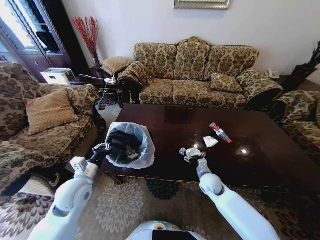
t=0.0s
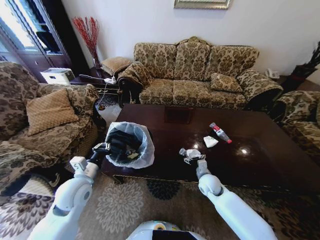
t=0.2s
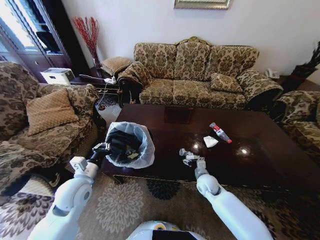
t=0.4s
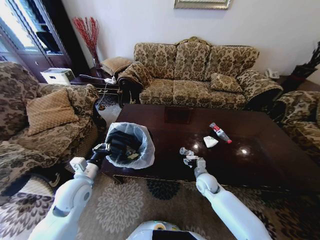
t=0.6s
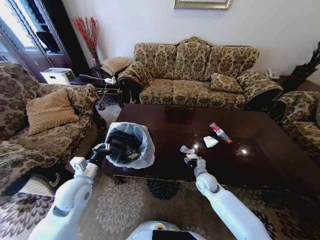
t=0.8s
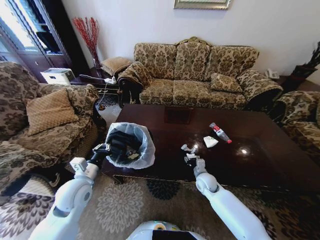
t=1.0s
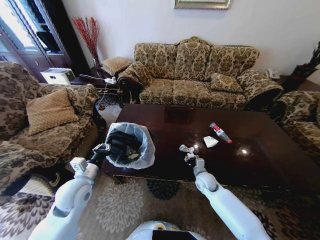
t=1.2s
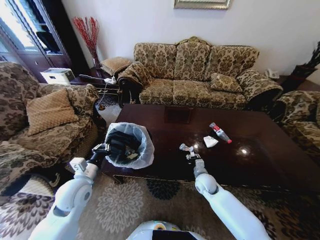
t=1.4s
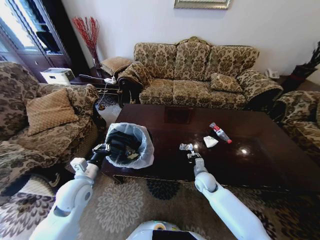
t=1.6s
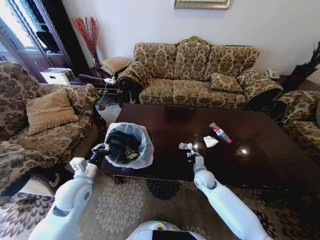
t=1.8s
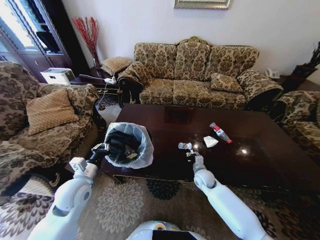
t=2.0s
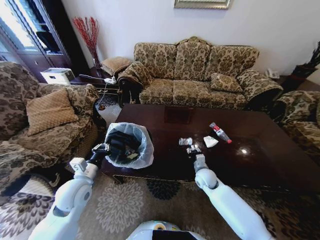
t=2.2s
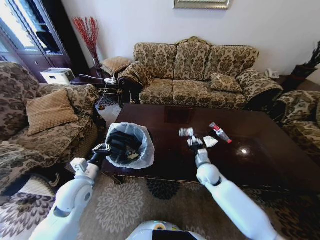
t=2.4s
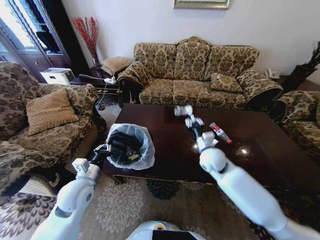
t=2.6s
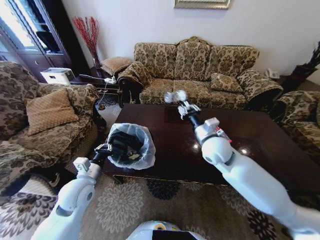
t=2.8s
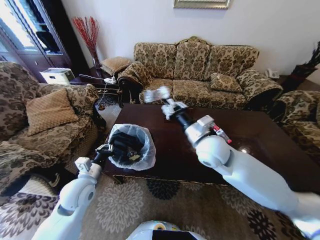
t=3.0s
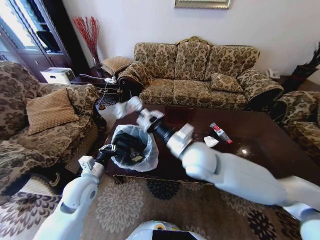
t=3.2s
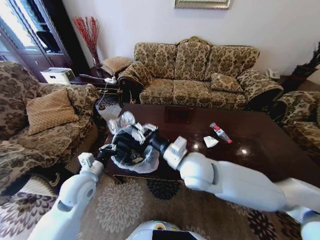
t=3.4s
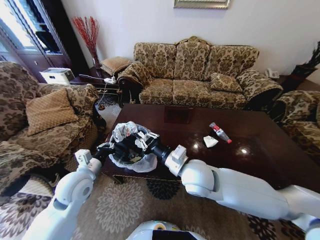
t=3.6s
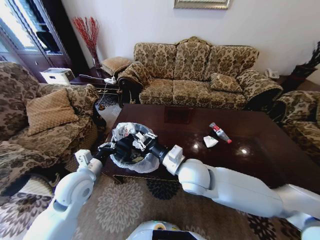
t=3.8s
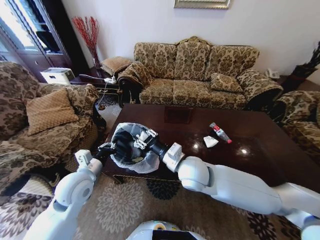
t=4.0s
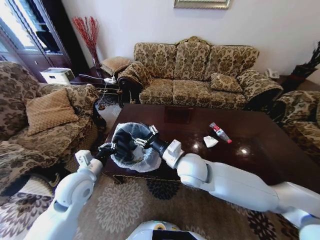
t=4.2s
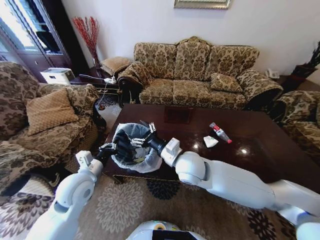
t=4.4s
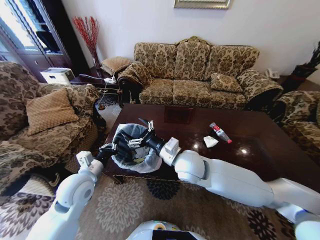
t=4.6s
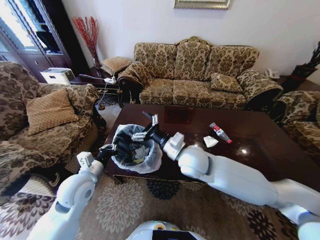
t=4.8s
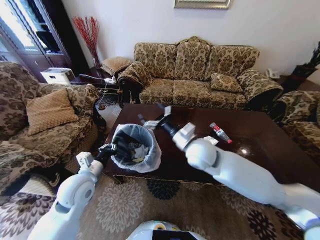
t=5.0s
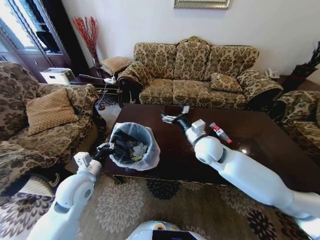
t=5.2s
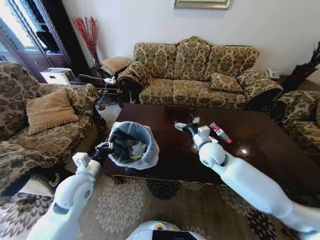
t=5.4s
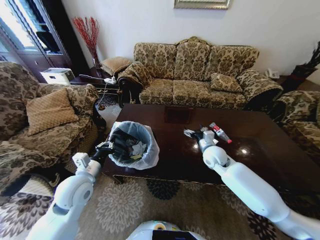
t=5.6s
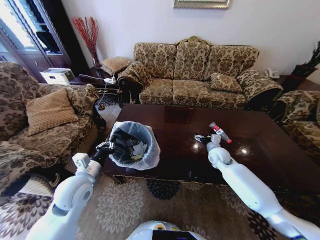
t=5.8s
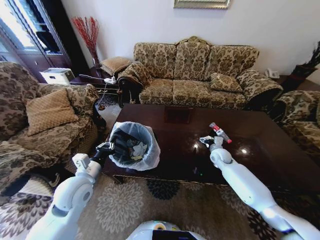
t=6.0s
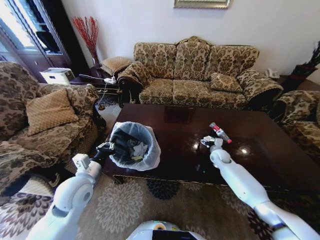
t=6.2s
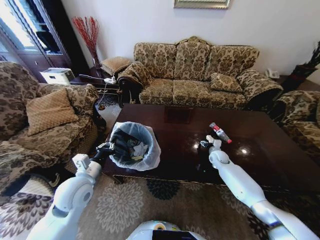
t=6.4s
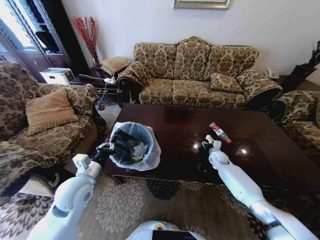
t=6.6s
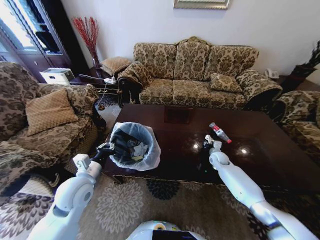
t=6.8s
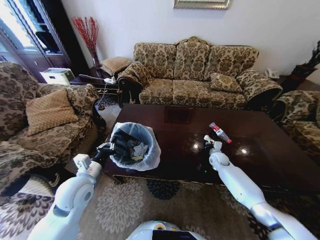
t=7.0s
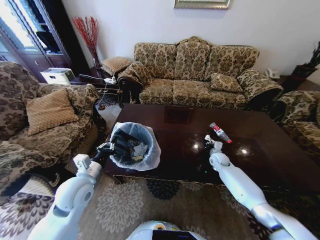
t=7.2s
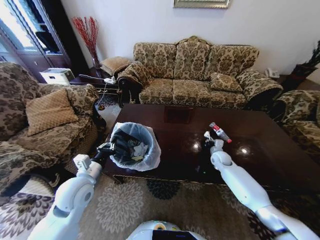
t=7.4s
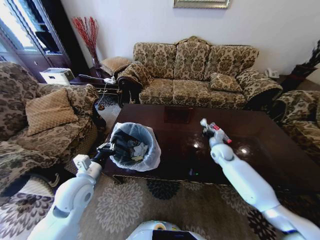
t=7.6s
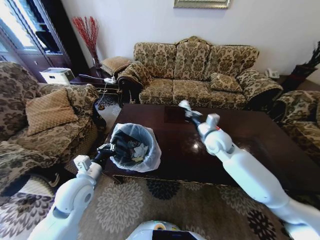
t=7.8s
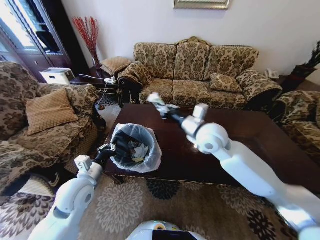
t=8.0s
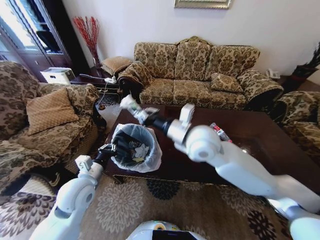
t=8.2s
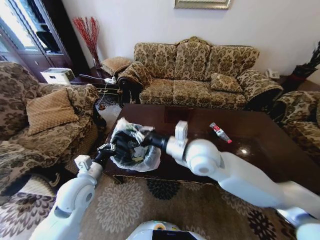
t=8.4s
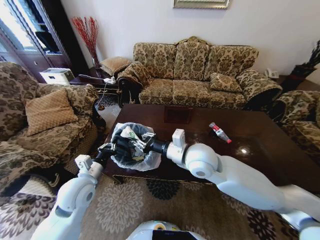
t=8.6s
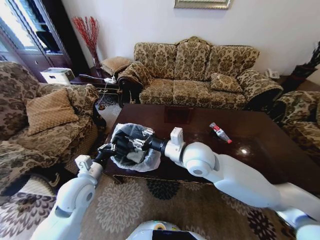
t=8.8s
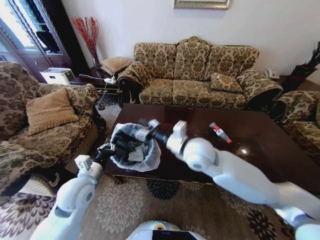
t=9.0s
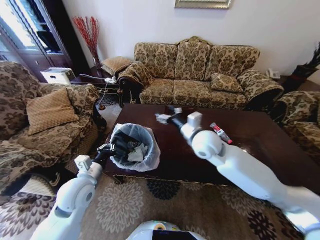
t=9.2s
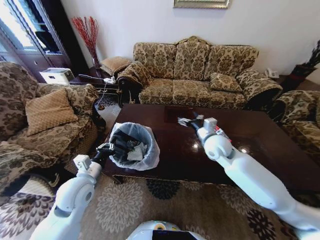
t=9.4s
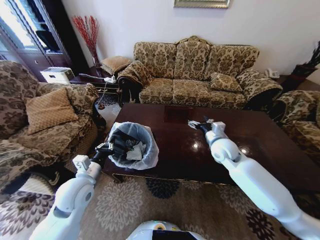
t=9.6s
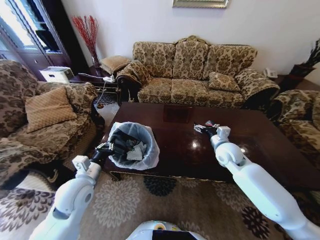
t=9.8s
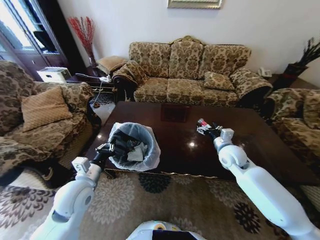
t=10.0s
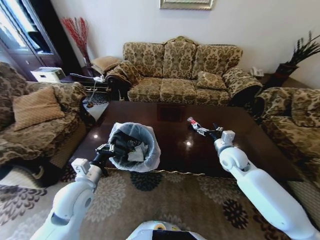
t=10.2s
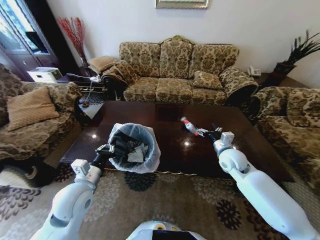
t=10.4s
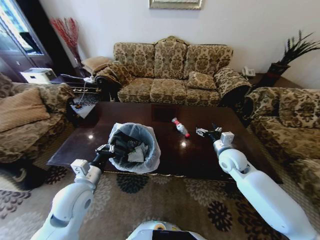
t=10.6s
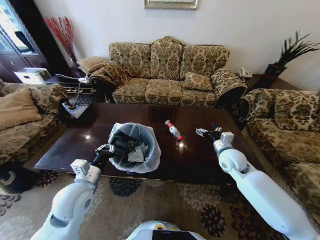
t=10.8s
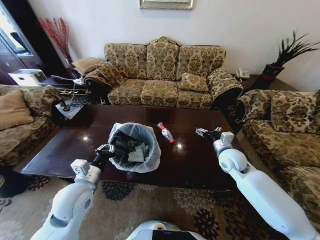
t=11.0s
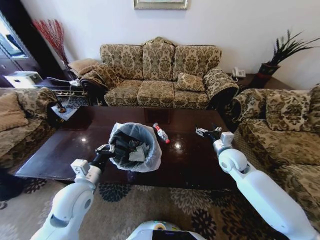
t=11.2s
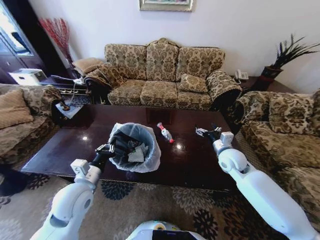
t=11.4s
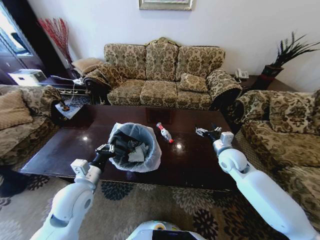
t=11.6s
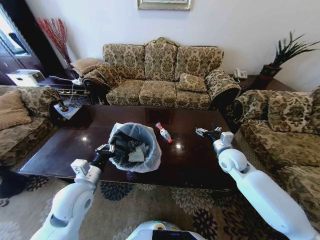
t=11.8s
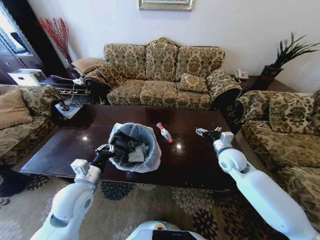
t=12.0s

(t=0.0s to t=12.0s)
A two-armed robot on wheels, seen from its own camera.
Task of the whole recording: Move to the front of the table and place the trash on the table into the trash bin.
t=0.0s - t=1.6s: The right gripper closes up.
t=1.6s - t=3.0s: The right gripper shifts roughly 30 cm upward.
t=3.0s - t=4.4s: The right gripper moves to the left and downward, some 10 cm, and opens up.
t=4.4s - t=6.0s: The right gripper goes about 35 cm to the right, downward and forward.
t=6.0s - t=7.6s: The right gripper moves upward, approximately 5 cm, and closes up.
t=7.6s - t=9.0s: The right gripper moves to the left, upward and backward, about 30 cm, and opens up.
t=9.0s - t=10.4s: The right gripper travels to the right and downward by approximately 20 cm, and opens its fingers.

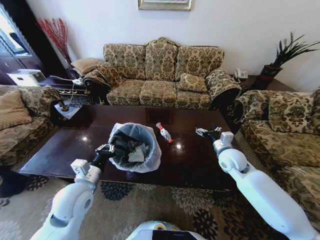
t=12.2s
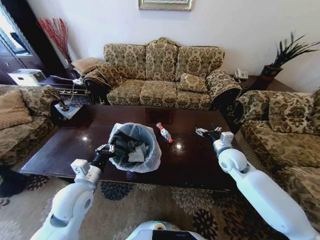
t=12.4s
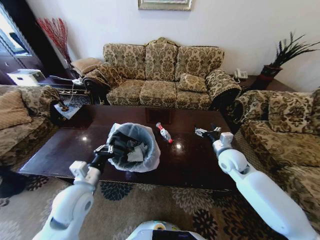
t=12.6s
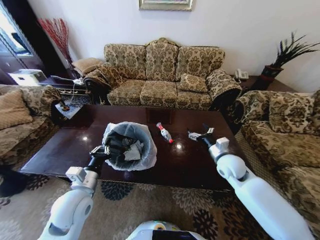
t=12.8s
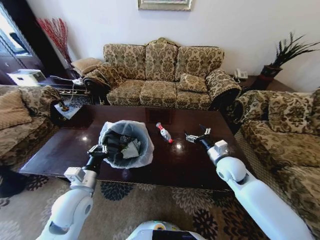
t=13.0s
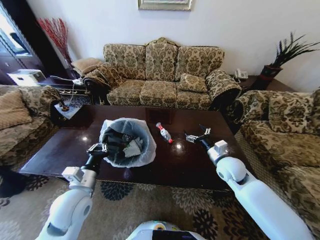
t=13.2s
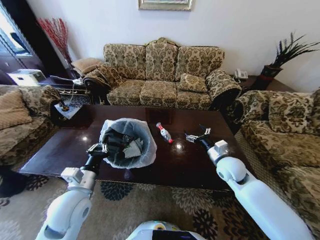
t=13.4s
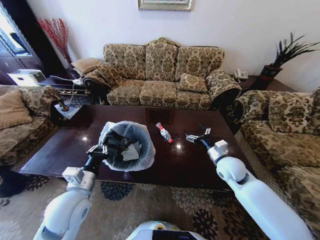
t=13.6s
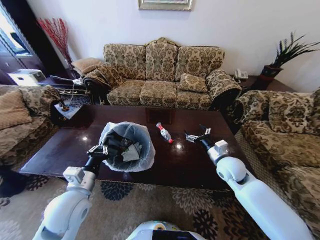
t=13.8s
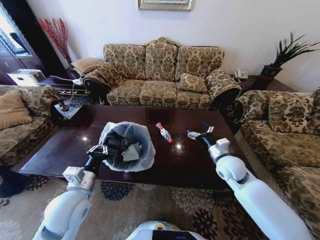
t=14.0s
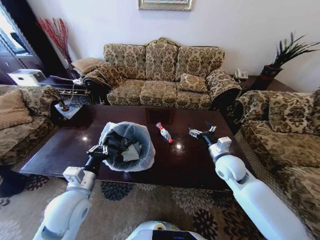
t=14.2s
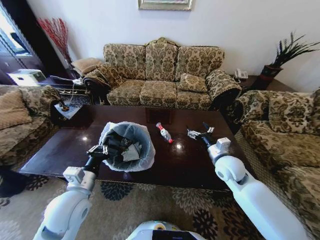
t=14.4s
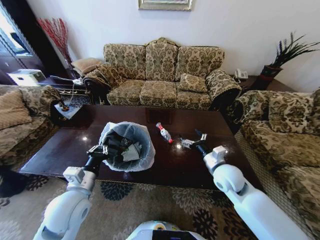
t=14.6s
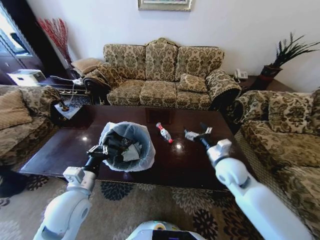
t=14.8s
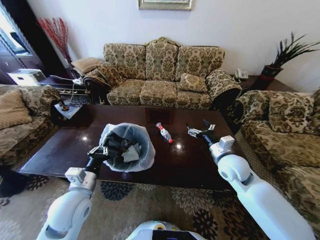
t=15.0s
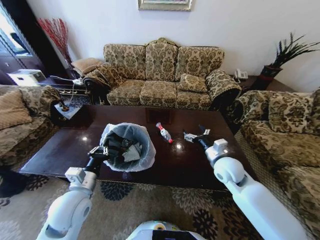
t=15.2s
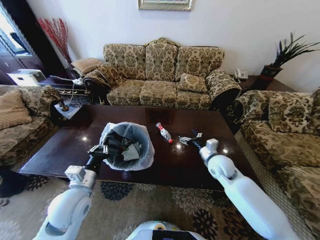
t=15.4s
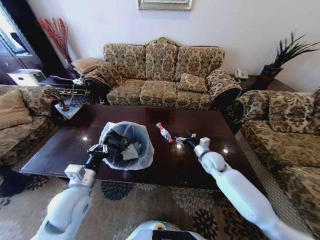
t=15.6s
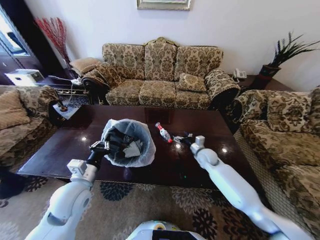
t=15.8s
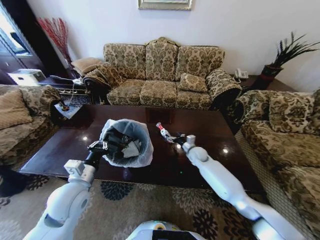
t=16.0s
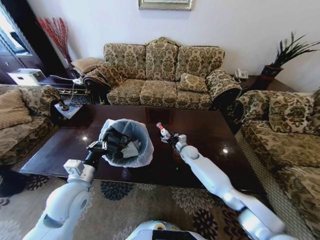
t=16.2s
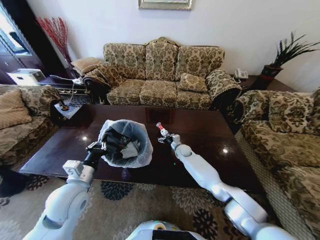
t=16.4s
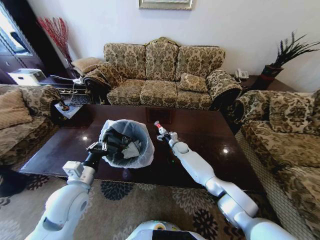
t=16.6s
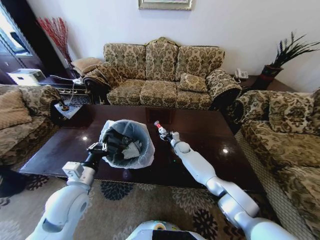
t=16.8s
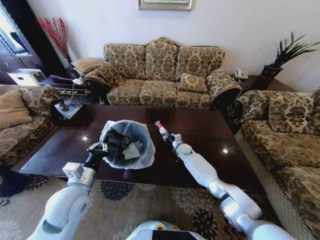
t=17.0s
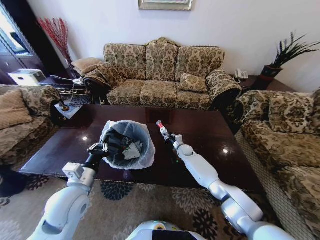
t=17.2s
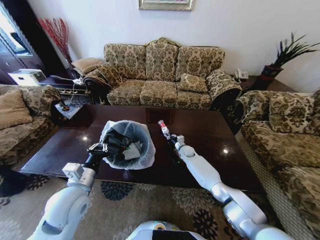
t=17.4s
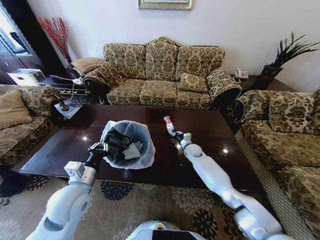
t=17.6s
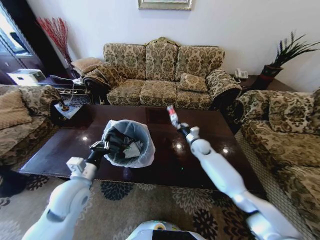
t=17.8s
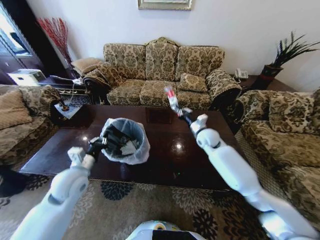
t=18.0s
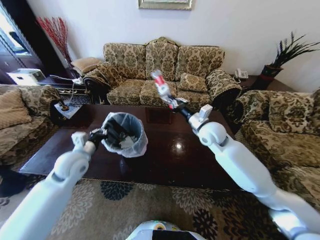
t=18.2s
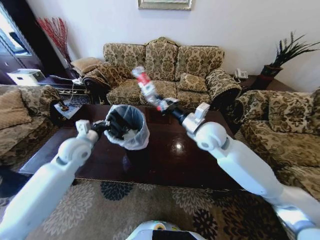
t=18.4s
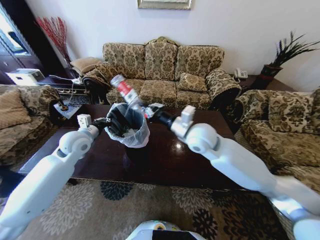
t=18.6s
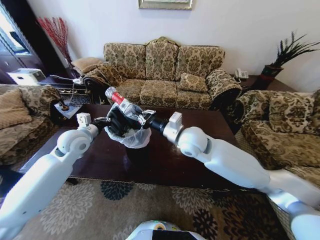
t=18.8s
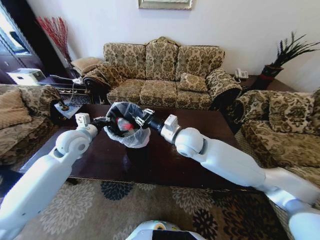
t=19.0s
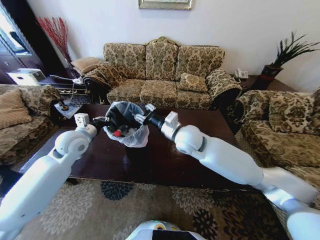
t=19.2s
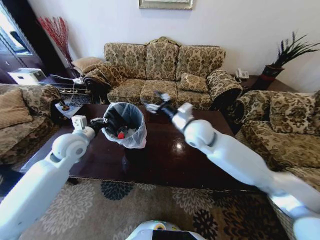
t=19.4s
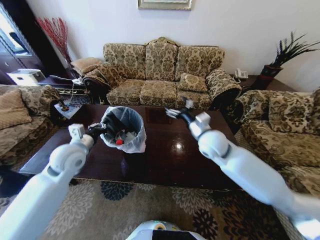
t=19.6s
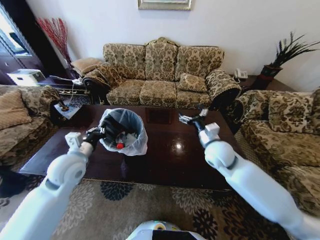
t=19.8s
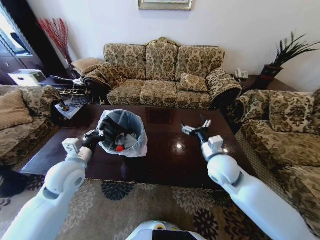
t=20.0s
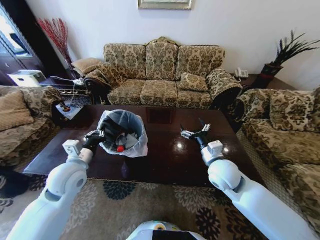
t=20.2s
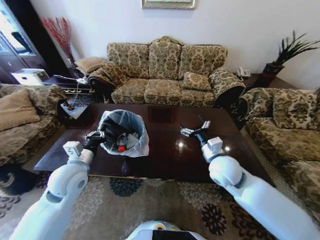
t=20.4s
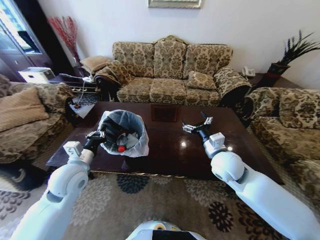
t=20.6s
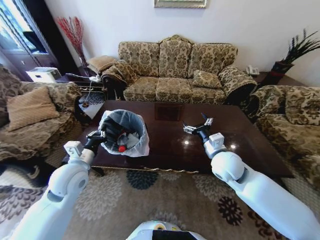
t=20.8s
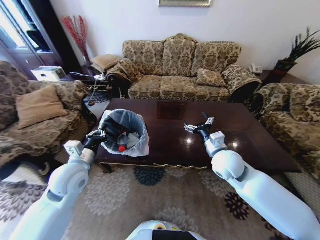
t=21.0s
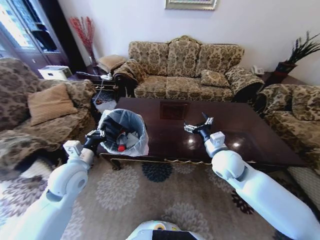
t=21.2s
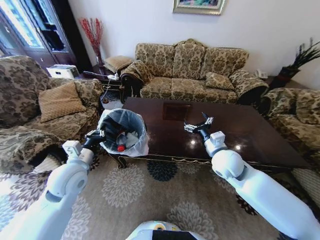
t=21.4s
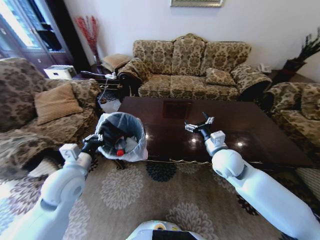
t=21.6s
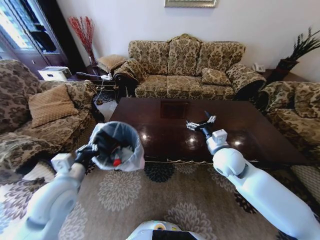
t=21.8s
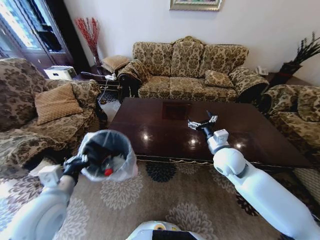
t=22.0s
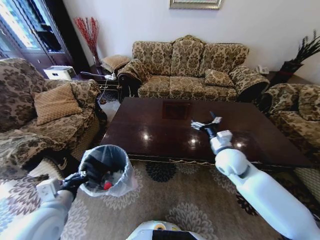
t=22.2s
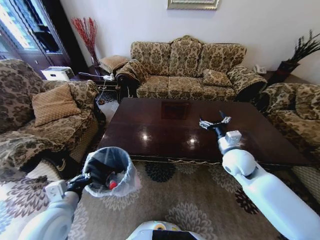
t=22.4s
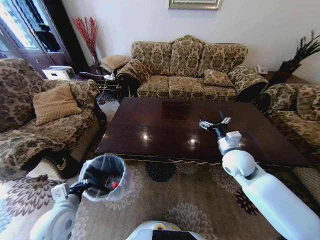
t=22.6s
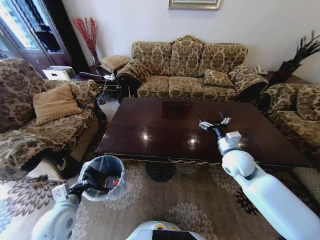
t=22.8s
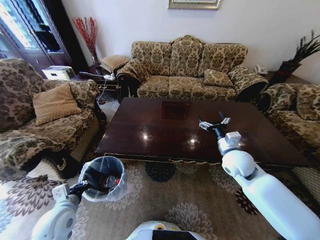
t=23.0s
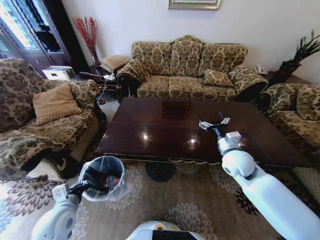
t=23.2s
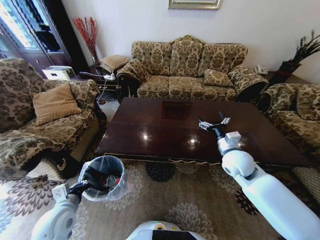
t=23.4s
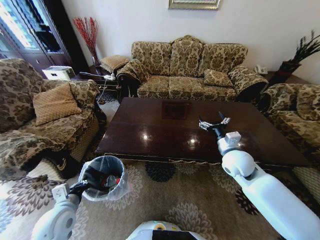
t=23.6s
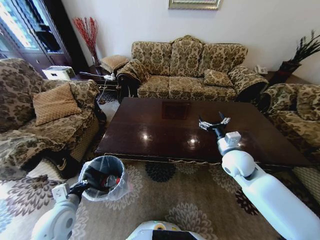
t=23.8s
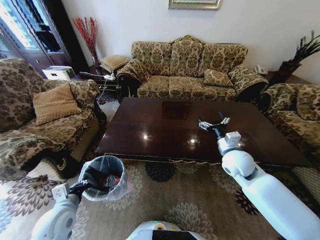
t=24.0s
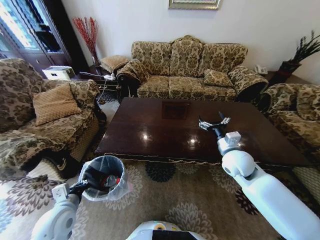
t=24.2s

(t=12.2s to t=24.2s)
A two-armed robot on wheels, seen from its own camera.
Task of the whole recording: Move to the front of the table and place the trash on the table into the trash bin.
t=12.2s - t=13.8s: The grippers make only small movements.
t=13.8s - t=15.2s: The grippers make only small movements.
t=15.2s - t=16.6s: The right gripper shifts approximately 30 cm forward, downward and to the left.
t=16.6s - t=18.2s: The right gripper is displaced upward and backward by some 30 cm, and closes. The left gripper heads forward, covering approximately 10 cm.
t=18.2s - t=19.8s: The right gripper goes roughly 5 cm backward, goes to the left and returns, roughly 10 cm each way, and opens; the left gripper moves roughly 5 cm forward and comes back.
t=21.2s - t=22.6s: The left gripper is displaced backward and downward by approximately 15 cm. The right gripper goes approximately 5 cm to the right.
t=22.6s - t=24.2s: Neither gripper changes place.
